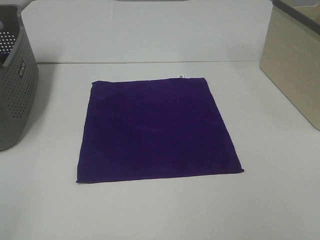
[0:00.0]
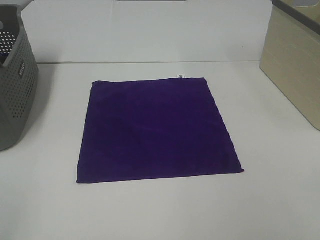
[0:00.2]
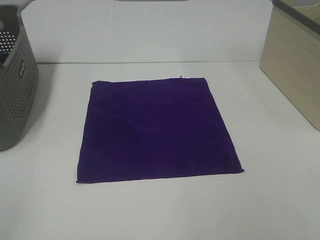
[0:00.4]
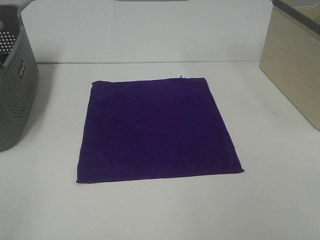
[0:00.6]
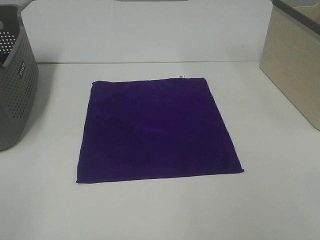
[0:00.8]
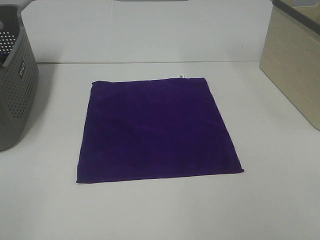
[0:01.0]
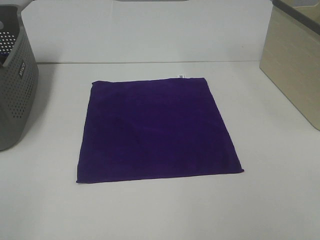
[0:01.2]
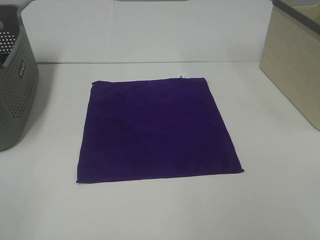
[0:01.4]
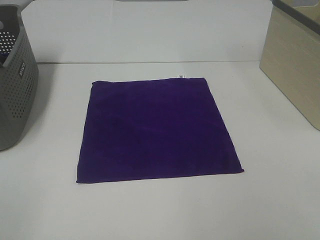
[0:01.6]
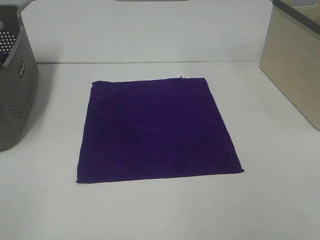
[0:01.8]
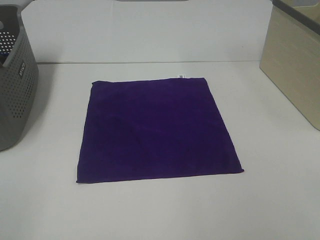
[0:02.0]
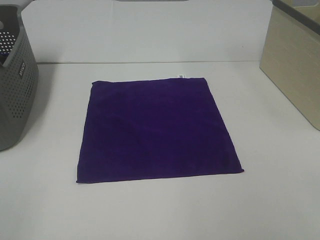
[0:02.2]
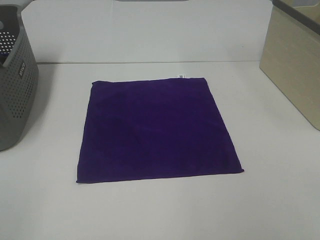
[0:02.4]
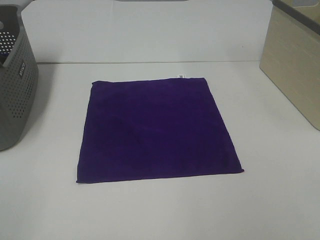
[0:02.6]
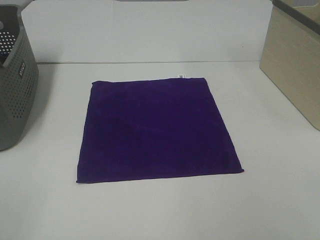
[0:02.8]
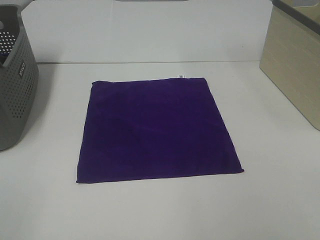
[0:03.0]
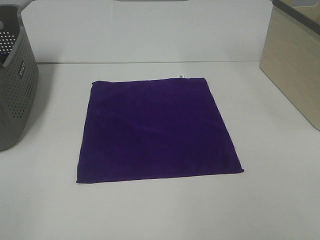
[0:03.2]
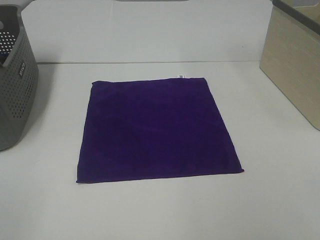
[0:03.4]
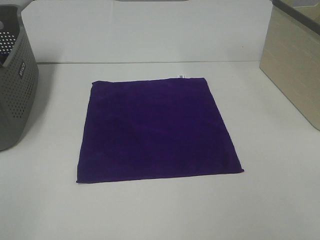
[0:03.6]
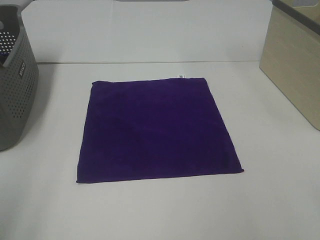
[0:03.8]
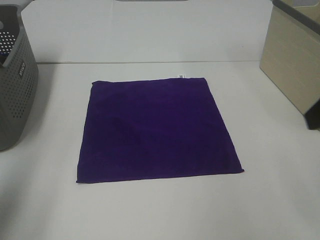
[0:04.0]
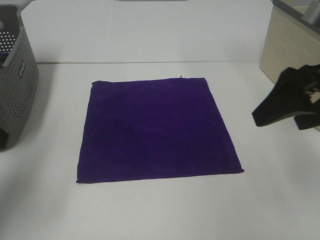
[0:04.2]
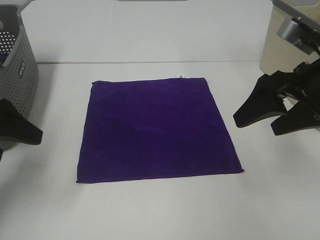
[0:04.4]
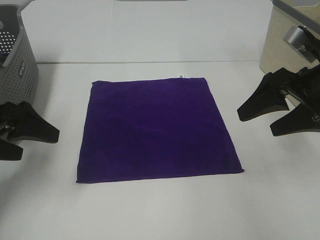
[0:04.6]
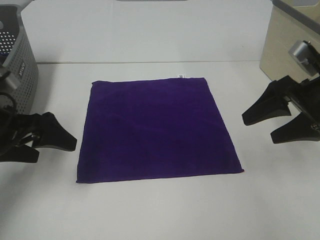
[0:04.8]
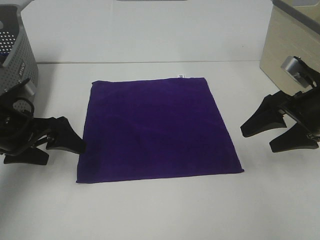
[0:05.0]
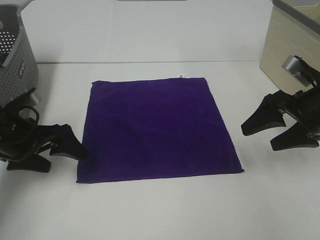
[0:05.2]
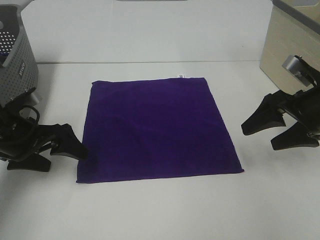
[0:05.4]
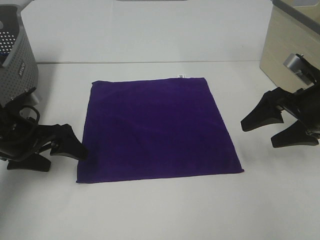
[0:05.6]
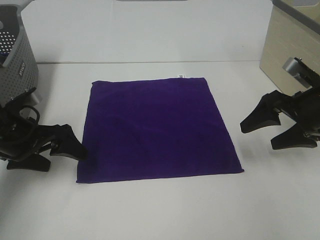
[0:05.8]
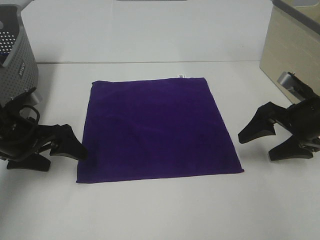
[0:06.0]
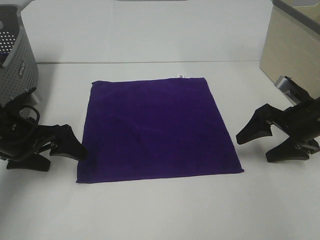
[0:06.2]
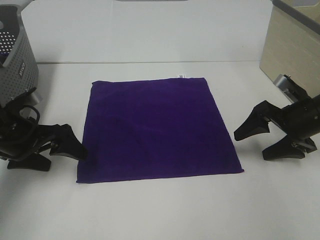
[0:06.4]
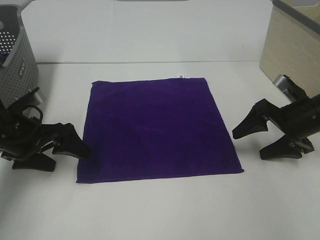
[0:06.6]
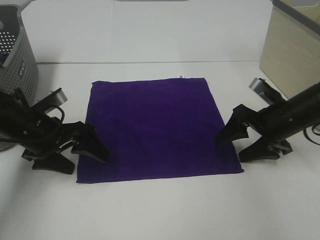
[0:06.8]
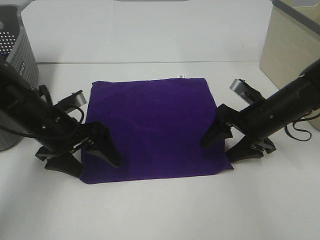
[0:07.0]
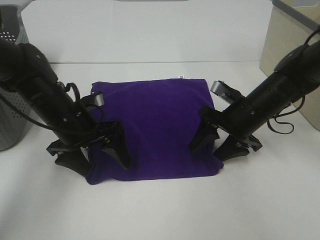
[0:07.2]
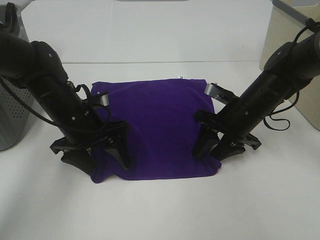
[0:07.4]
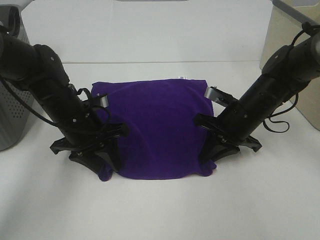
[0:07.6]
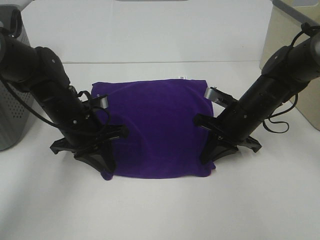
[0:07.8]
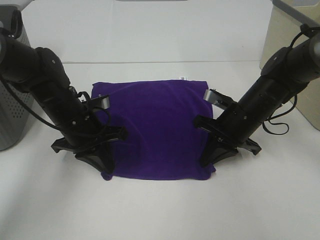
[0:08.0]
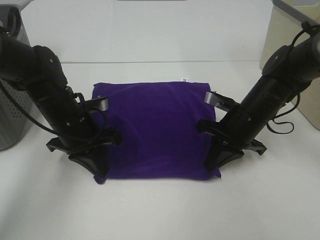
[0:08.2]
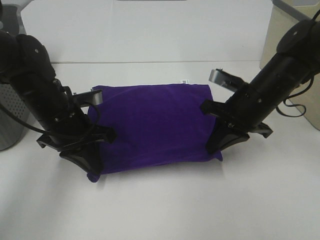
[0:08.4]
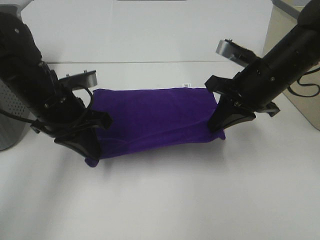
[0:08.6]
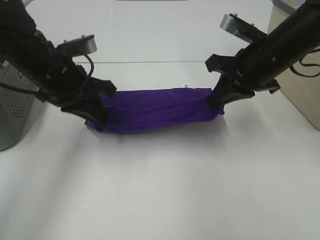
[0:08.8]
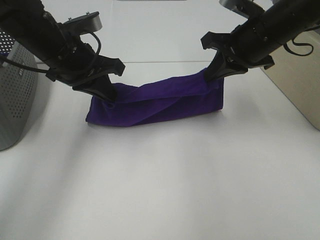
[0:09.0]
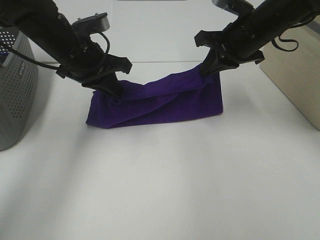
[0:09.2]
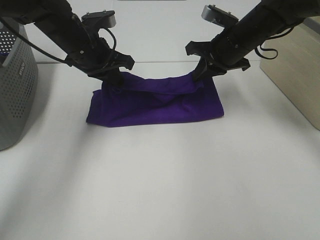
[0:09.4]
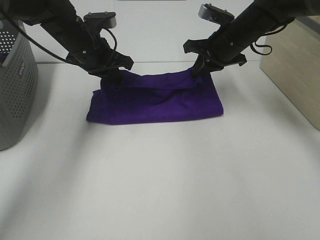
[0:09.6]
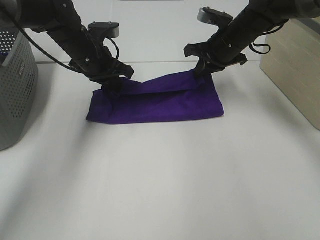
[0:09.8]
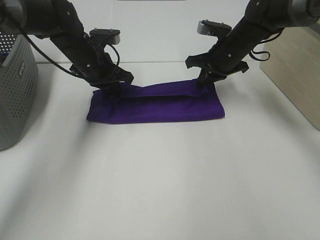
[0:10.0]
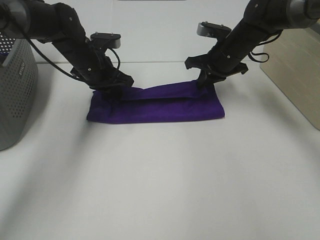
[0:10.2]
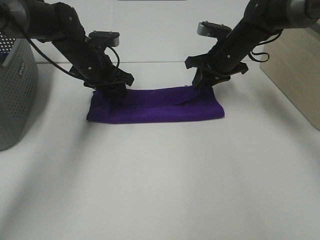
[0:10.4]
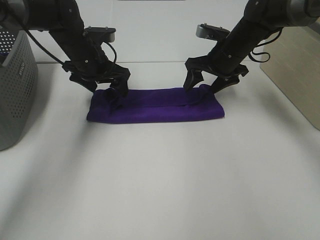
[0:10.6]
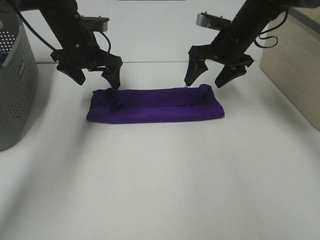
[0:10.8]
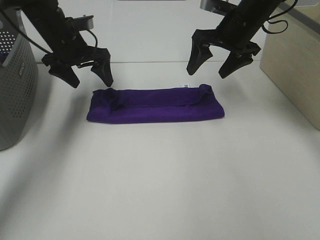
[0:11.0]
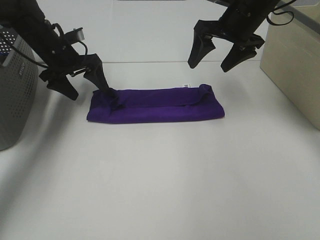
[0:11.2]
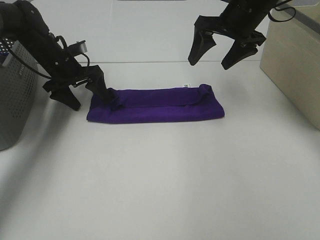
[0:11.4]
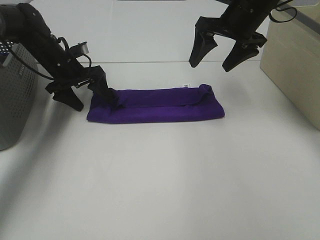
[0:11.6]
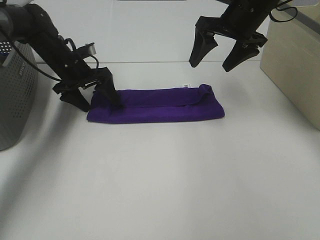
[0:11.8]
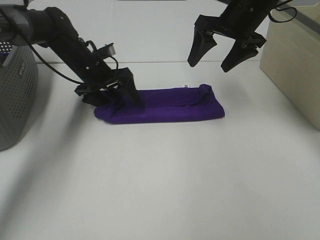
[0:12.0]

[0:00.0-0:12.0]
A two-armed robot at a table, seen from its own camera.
Task of the whole recording: Fold towels.
Step, 0:00.0 to 0:07.8: Left hand: grab the bottom left corner of purple towel.
Step, 0:00.0 to 0:07.8: Right hand: grab the bottom right corner of purple towel.
Step, 0:08.0 to 0:10.4: Left hand: fold the purple towel up.
Step, 0:08.0 to 0:10.4: Right hand: fold the purple towel up.
0:00.0 to 0:03.0: Both grippers stay about where they are.
0:03.0 to 0:04.4: Both grippers travel together forward, approximately 25 cm.
0:04.4 to 0:06.0: The left gripper heads downward and forward, covering approximately 10 cm; the right gripper travels downward and to the right by approximately 15 cm.
0:06.0 to 0:07.6: The right gripper goes approximately 10 cm to the left, and closes its fingers; the left gripper is displaced to the right by some 10 cm, and closes.
0:07.6 to 0:09.0: The two grippers go roughly 15 cm upward.
0:09.0 to 0:10.4: The two grippers go approximately 15 cm forward and downward. The right gripper opens up; the left gripper opens up.
0:10.4 to 0:12.0: The right gripper goes roughly 10 cm upward, and opens up. Meanwhile the left gripper opens its fingers.

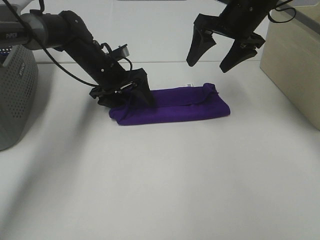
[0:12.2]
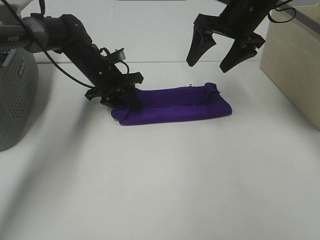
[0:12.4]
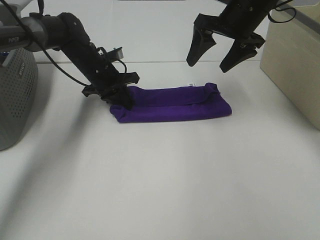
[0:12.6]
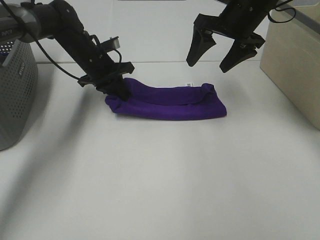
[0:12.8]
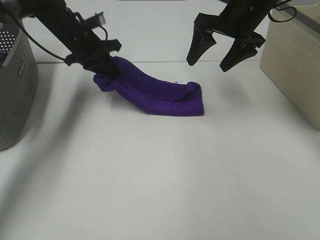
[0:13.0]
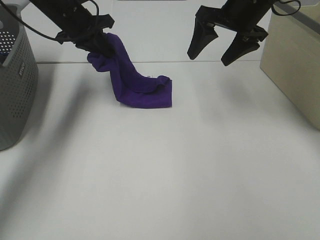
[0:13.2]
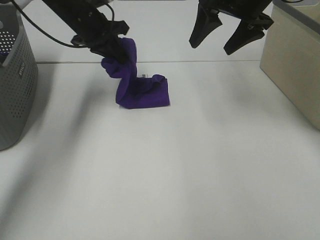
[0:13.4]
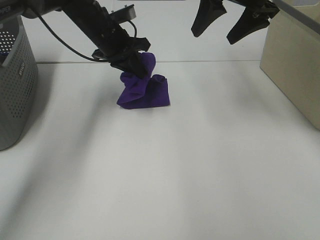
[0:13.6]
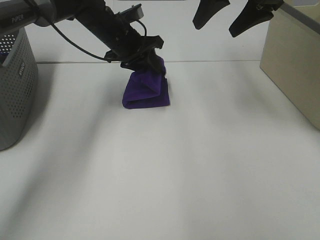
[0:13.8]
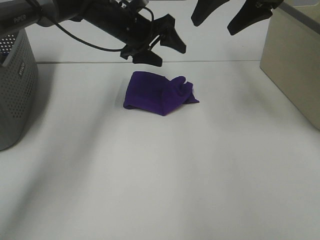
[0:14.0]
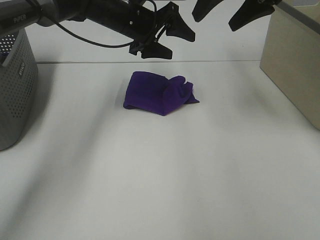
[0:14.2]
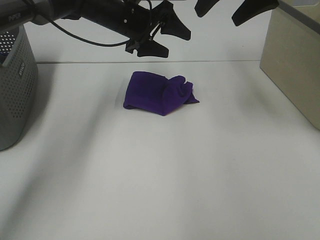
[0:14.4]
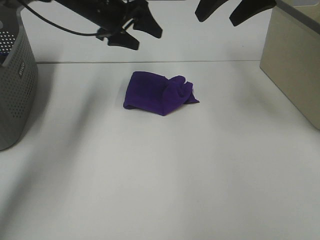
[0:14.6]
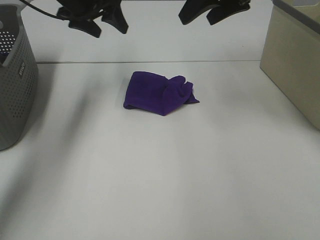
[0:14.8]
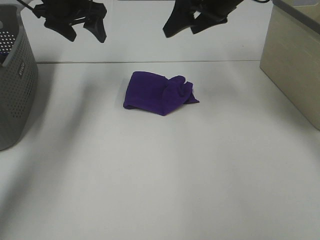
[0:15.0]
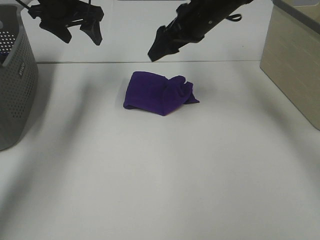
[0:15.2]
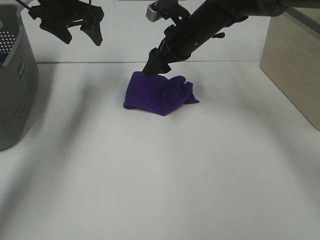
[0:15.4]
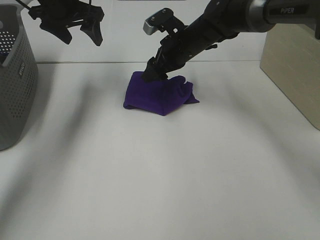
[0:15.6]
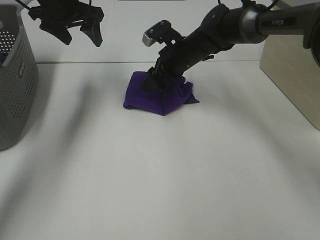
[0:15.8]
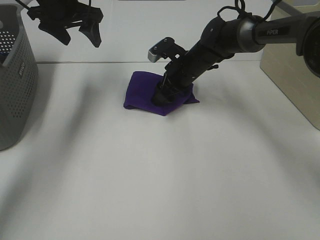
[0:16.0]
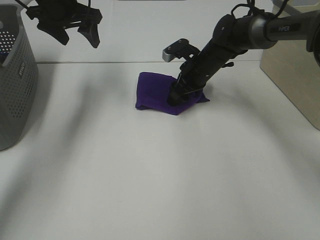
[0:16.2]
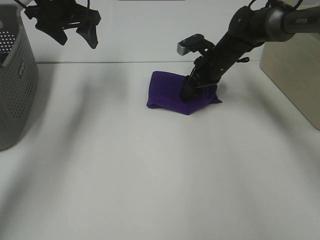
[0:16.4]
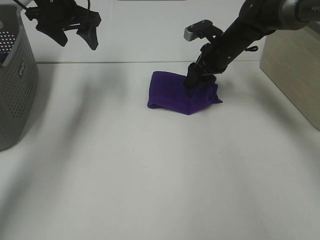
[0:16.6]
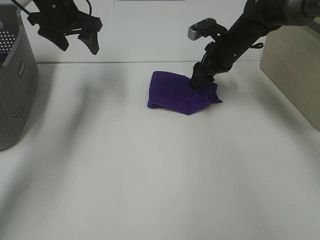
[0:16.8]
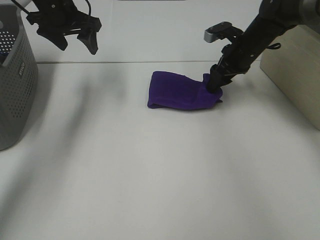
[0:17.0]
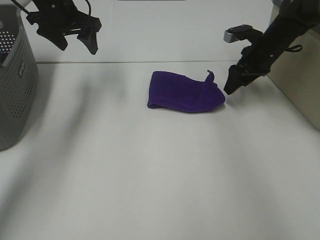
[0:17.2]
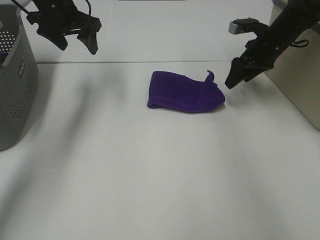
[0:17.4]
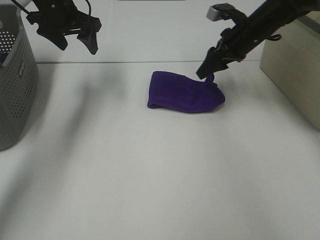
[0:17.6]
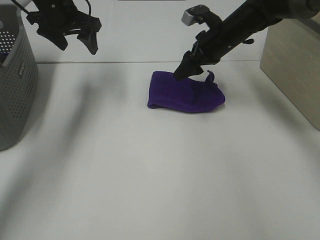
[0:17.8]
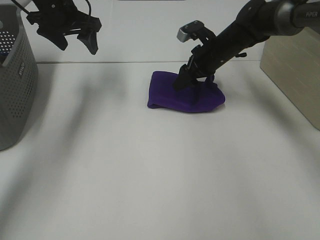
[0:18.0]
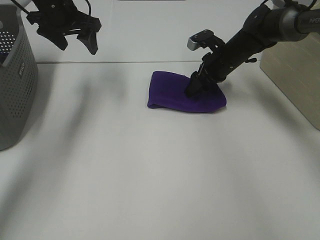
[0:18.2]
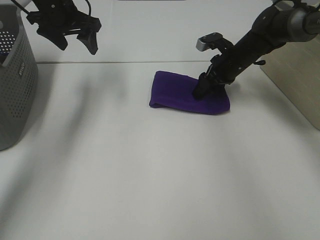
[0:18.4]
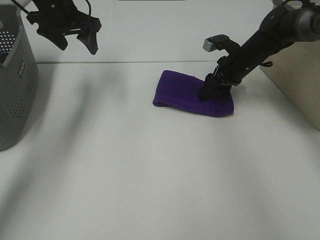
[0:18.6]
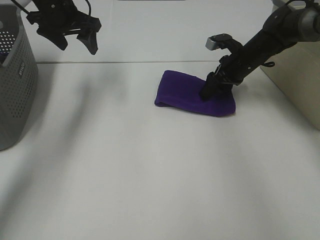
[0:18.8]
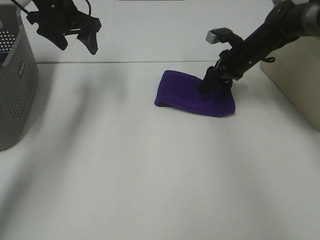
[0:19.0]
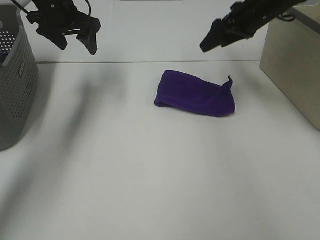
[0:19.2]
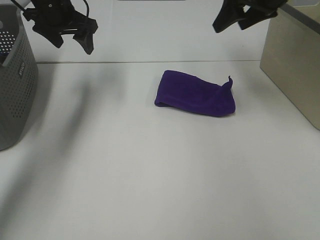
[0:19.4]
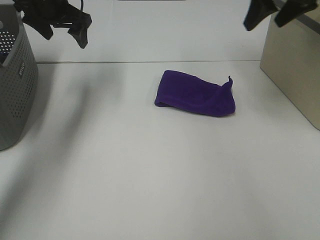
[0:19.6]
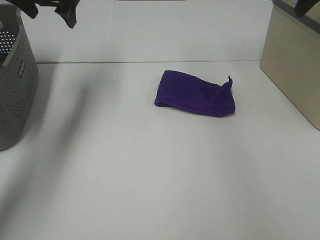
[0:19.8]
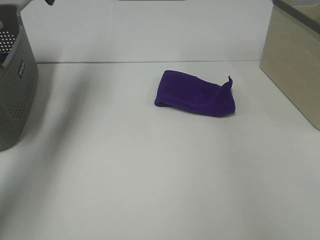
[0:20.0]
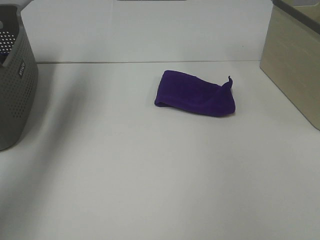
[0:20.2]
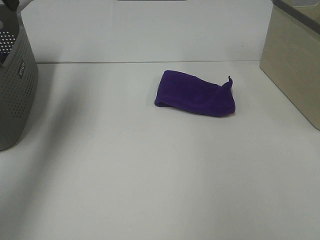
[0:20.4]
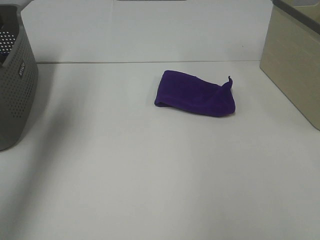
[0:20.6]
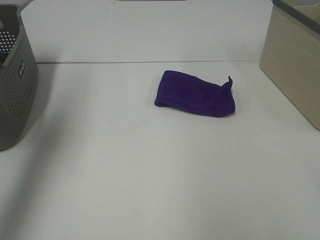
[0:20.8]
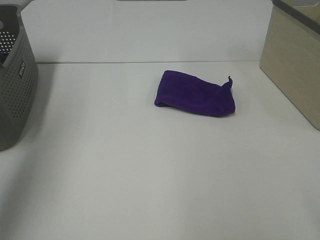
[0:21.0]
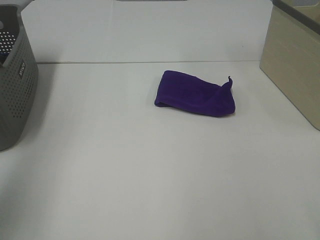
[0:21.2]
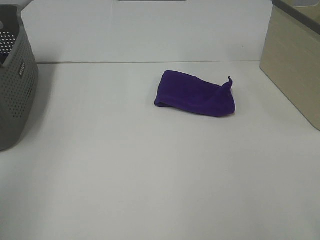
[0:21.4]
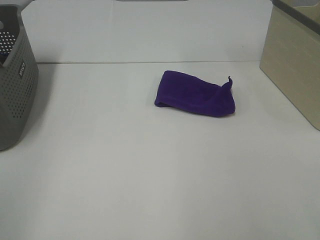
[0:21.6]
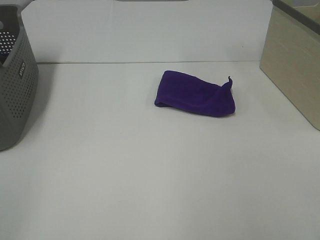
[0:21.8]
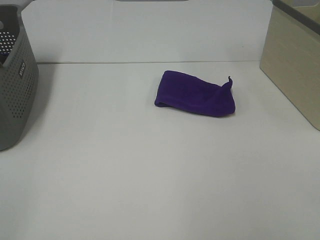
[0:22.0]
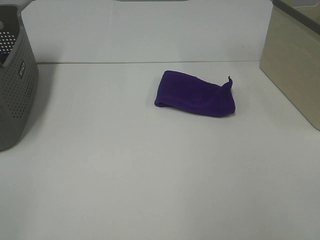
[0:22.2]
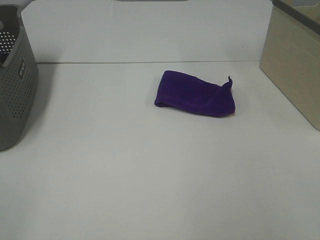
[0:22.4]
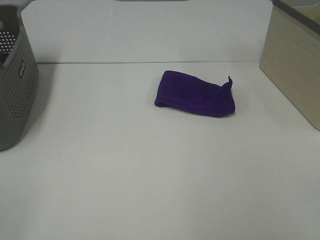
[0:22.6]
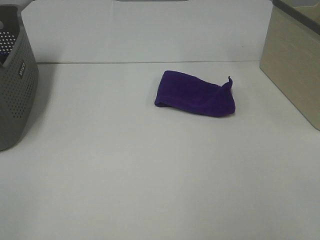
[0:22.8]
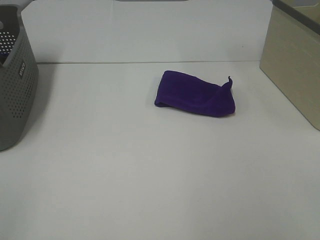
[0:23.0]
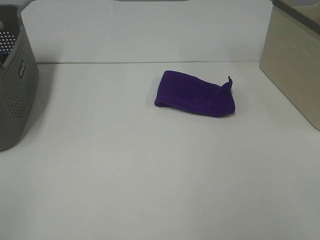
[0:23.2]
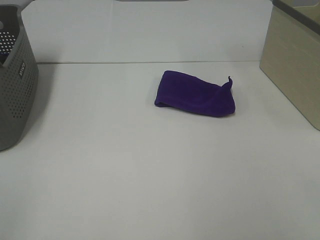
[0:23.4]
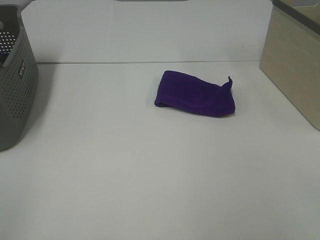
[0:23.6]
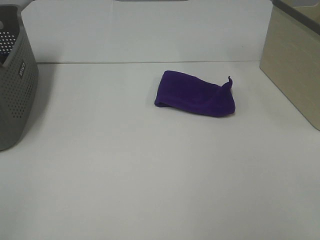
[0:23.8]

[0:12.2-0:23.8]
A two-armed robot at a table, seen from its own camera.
Task of the whole recording: Fold towels.
Step, 0:14.0 to 0:19.0: Right hand: adjust the purple towel.
0:12.2 to 0:13.6: Both grippers move upward, about 5 cm. The left gripper closes.
0:13.6 to 0:15.0: The left gripper moves to the left and upward, some 10 cm, and opens; the right gripper ends up roughly 5 cm from where it was.
0:15.0 to 0:16.6: The right gripper moves downward, roughly 10 cm.
0:16.6 to 0:18.0: The right gripper moves roughly 10 cm to the right and comes back.
0:18.0 to 0:19.4: The right gripper is displaced upward and to the right by approximately 20 cm.
0:19.4 to 0:21.0: The left gripper moves backward and upward, some 35 cm. Meanwhile the right gripper is displaced backward by approximately 40 cm.
0:21.0 to 0:22.4: The left gripper shifts roughly 20 cm backward and downward.
